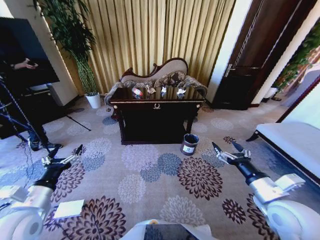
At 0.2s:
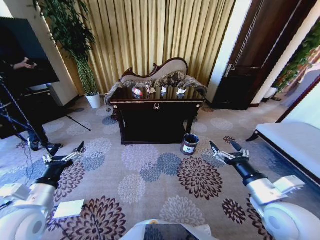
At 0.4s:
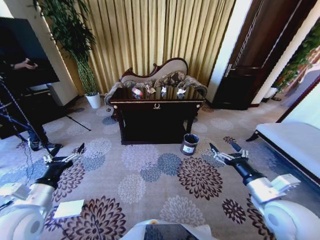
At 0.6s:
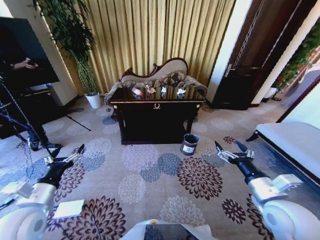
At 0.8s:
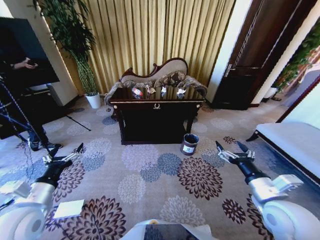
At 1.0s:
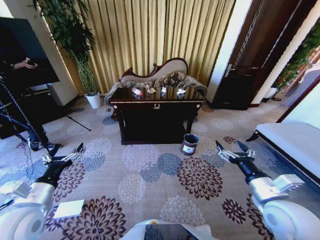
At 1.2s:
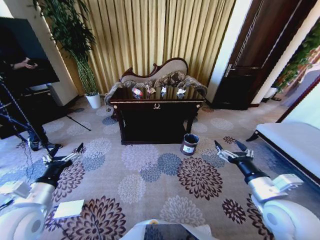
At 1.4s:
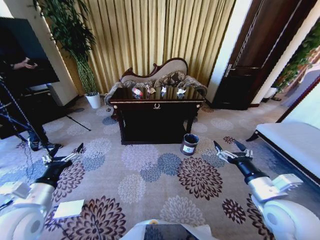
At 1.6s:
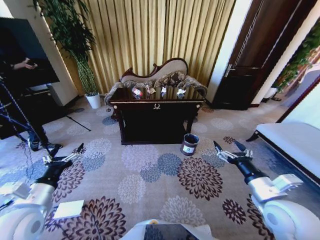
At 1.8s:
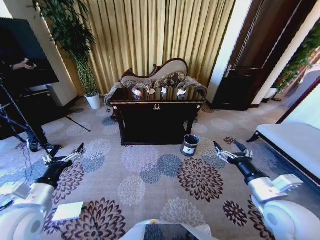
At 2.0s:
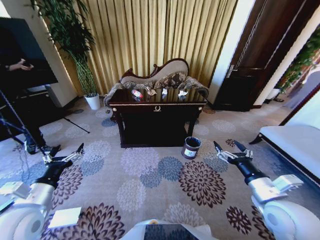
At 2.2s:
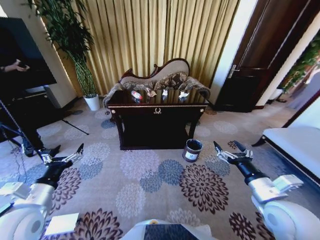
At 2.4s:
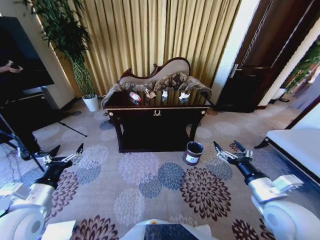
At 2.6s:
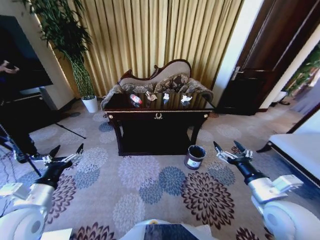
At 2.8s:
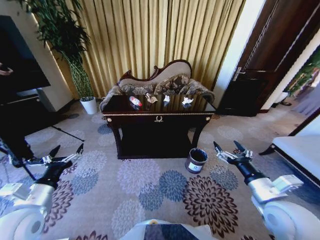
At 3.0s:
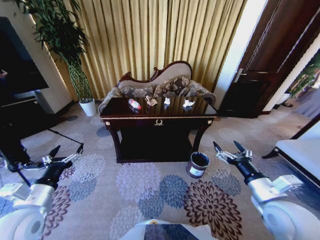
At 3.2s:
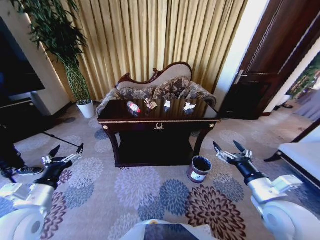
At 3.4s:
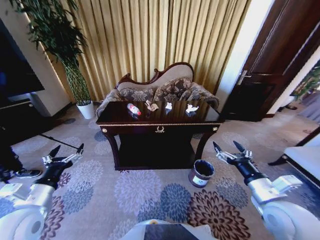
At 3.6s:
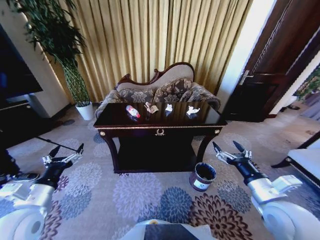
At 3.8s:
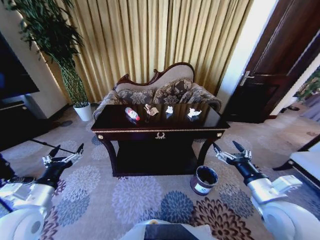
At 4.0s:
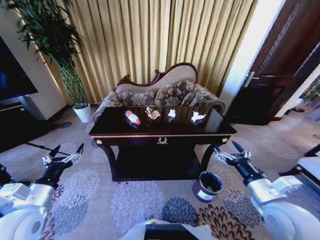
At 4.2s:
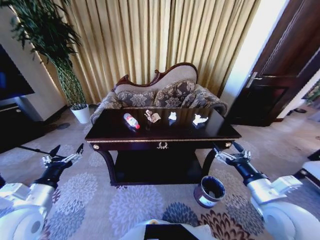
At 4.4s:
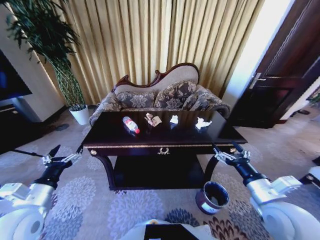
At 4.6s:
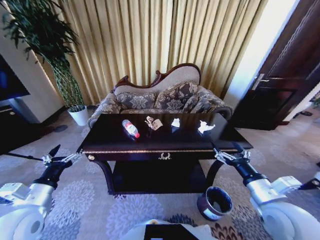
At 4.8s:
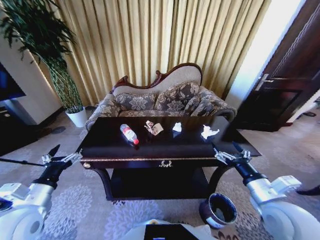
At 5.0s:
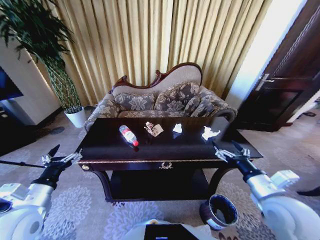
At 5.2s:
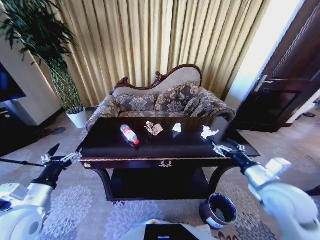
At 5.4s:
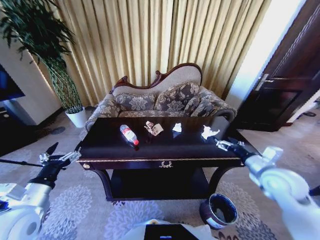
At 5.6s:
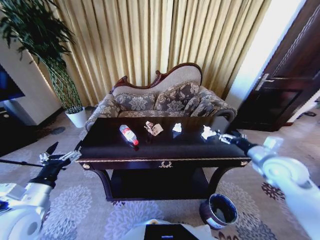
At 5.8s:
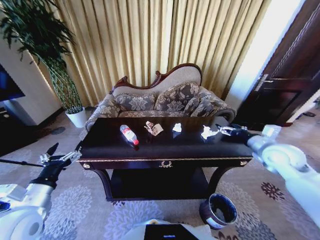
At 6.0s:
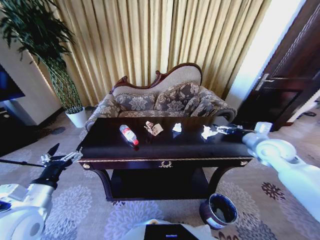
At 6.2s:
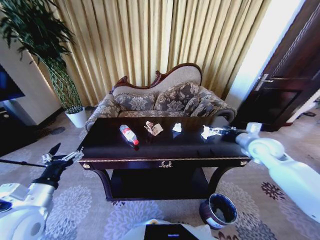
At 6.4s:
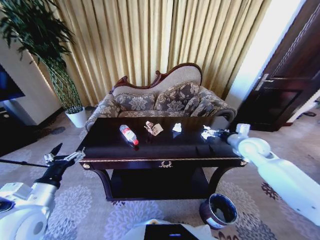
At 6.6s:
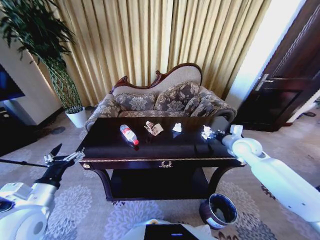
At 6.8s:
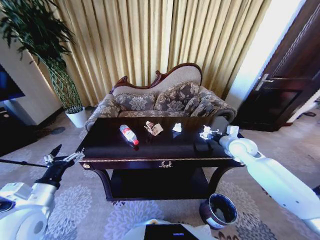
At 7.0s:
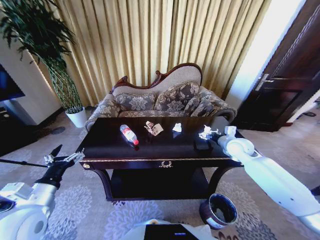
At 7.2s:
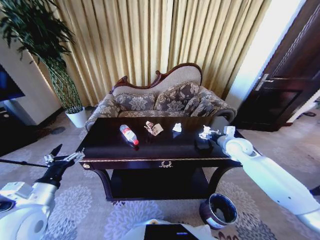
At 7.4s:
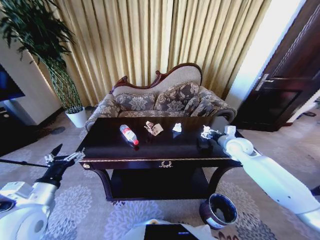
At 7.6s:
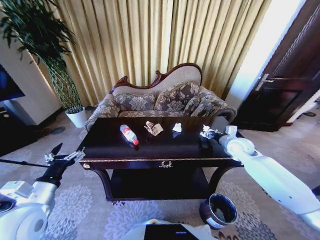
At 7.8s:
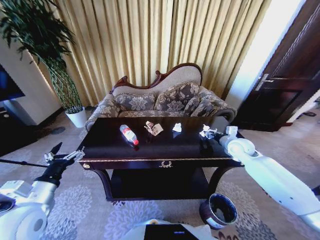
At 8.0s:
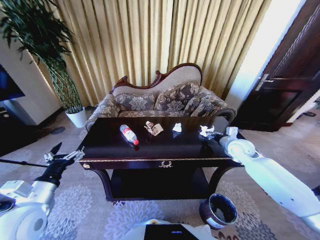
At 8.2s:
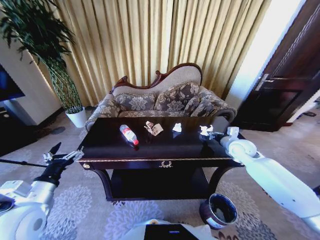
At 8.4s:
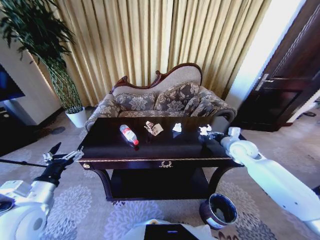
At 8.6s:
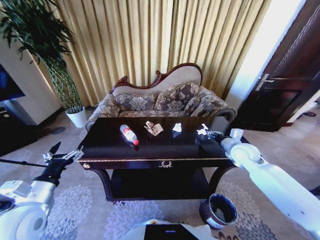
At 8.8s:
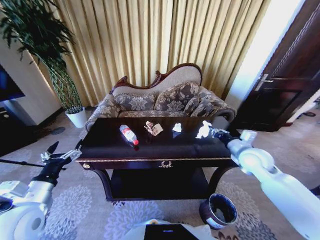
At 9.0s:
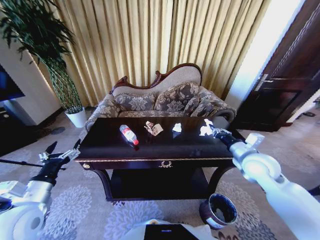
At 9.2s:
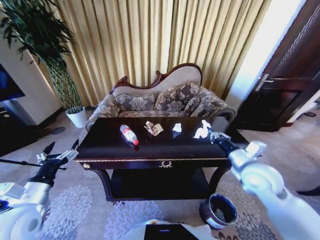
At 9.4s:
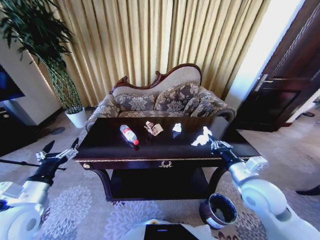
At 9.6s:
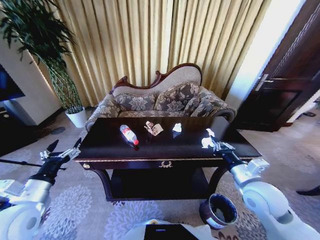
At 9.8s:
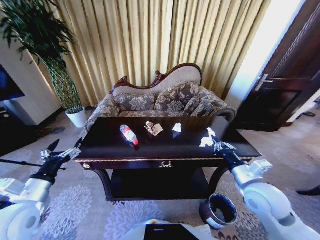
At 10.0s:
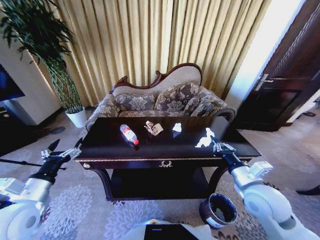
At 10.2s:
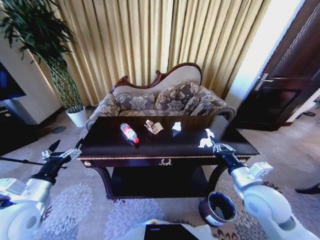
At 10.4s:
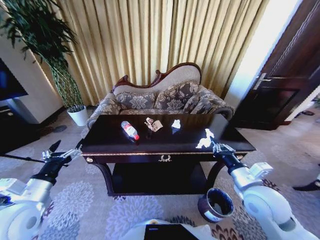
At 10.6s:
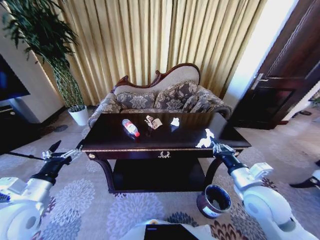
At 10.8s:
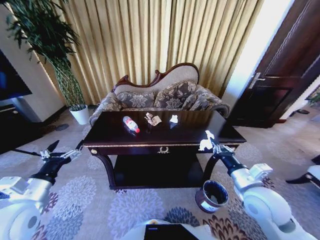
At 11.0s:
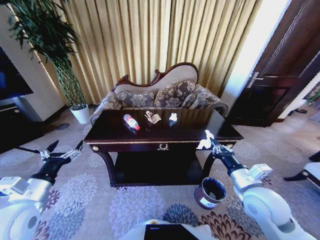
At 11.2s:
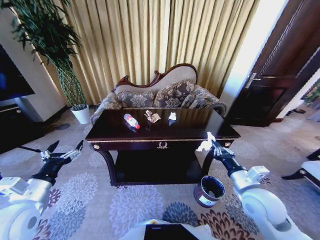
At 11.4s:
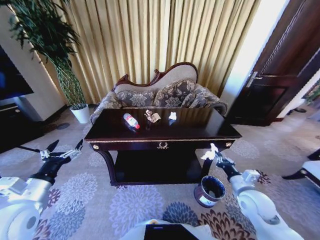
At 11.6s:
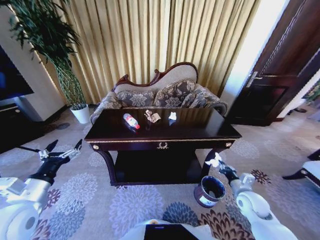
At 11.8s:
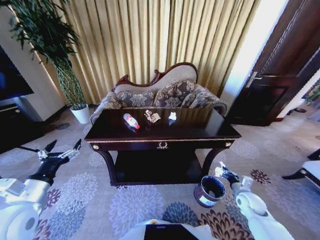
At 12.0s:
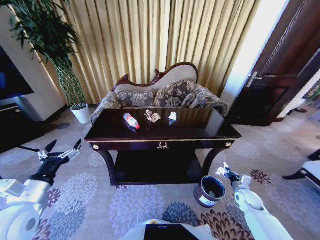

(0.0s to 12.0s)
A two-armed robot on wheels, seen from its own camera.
Task of the whole recording: Move to the front of the table and place the trash on the table into the trash bin.
4.4s - 6.0s: The right gripper heads forward and to the right, covering approximately 25 cm.
6.0s - 7.6s: The right gripper moves forward, downward and to the left, approximately 10 cm, and closes up.
7.6s - 9.0s: The right gripper moves backward, some 10 cm, and closes.
9.0s - 10.4s: The right gripper goes some 10 cm backward.
10.4s - 12.0s: The right gripper is displaced downward and to the right by roughly 30 cm.

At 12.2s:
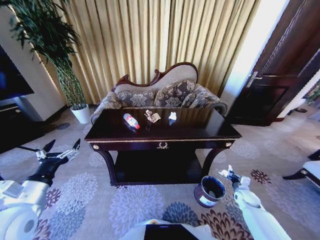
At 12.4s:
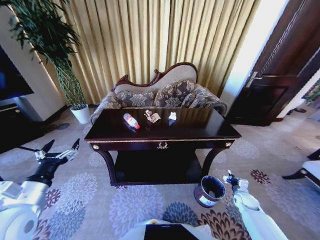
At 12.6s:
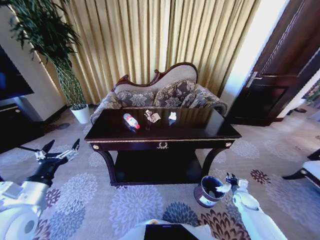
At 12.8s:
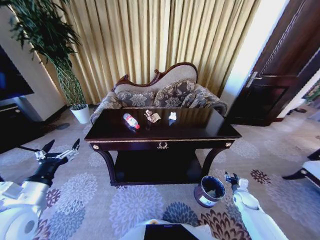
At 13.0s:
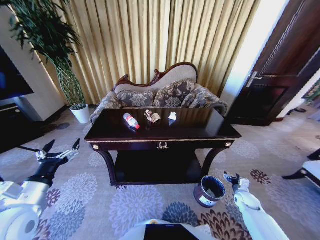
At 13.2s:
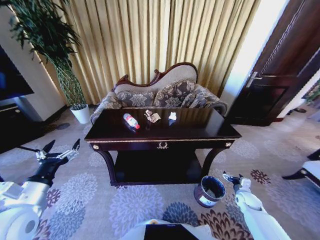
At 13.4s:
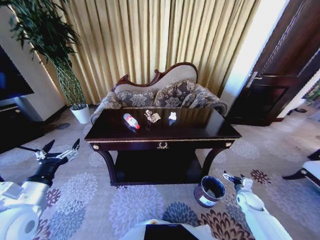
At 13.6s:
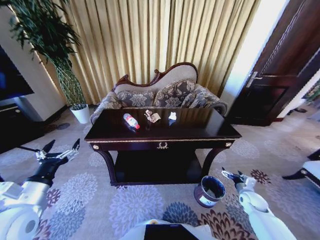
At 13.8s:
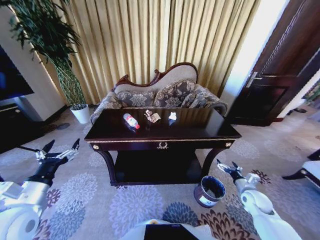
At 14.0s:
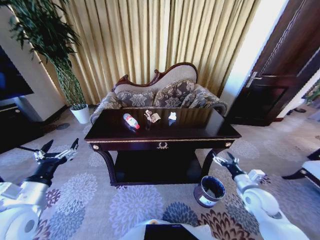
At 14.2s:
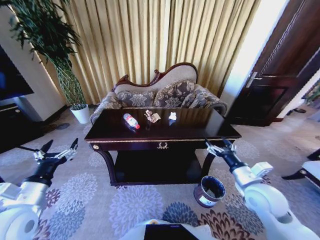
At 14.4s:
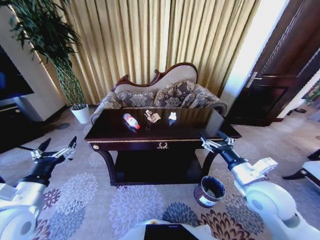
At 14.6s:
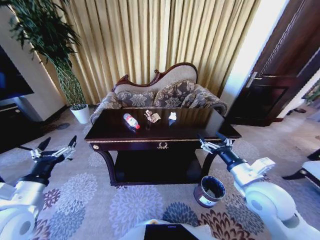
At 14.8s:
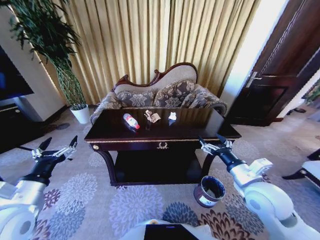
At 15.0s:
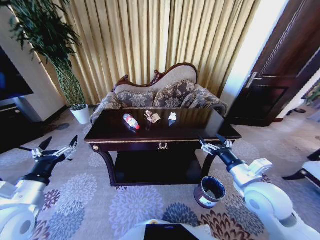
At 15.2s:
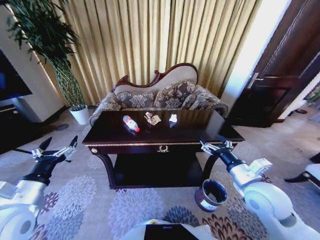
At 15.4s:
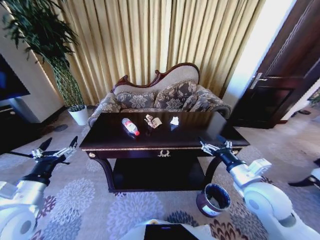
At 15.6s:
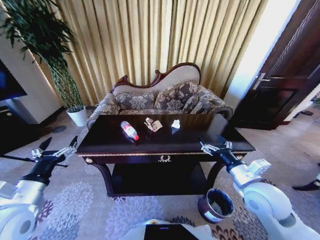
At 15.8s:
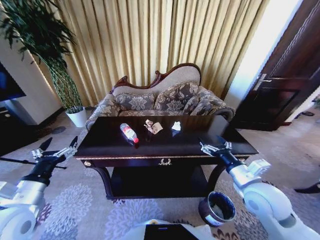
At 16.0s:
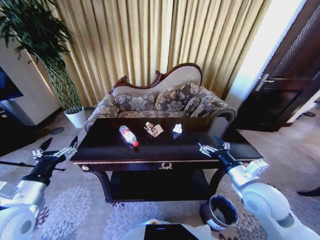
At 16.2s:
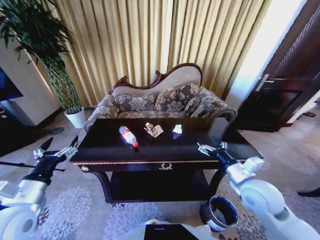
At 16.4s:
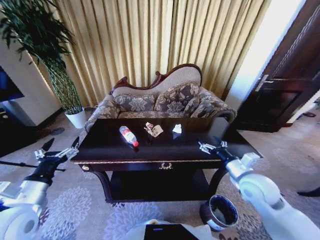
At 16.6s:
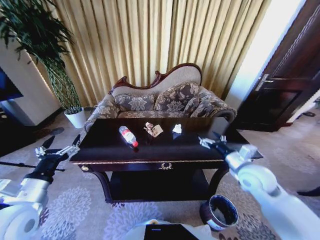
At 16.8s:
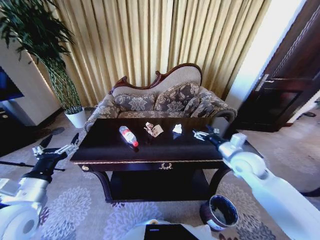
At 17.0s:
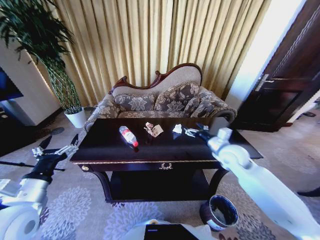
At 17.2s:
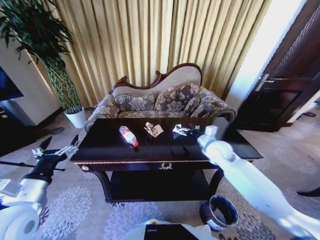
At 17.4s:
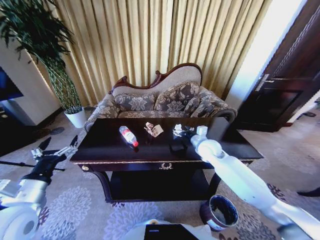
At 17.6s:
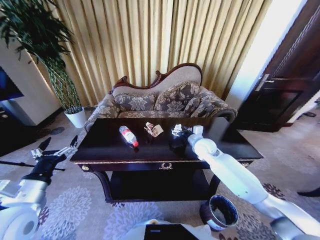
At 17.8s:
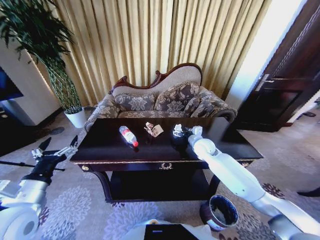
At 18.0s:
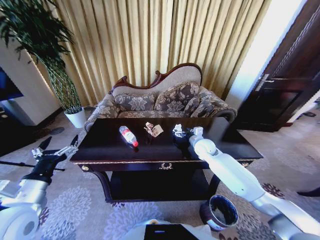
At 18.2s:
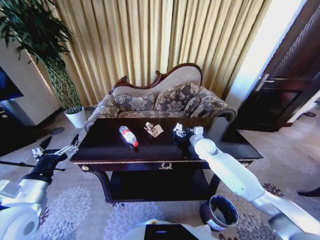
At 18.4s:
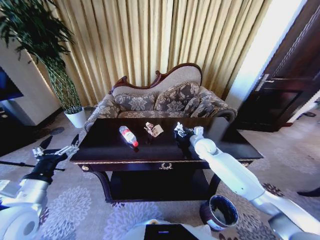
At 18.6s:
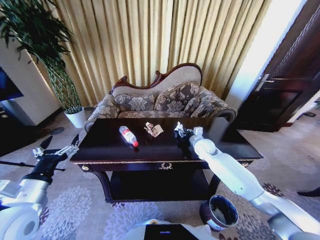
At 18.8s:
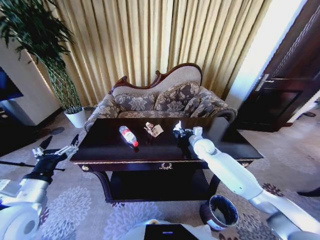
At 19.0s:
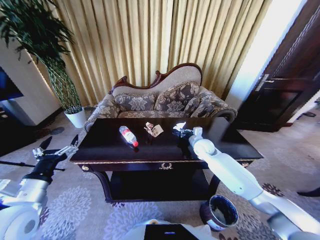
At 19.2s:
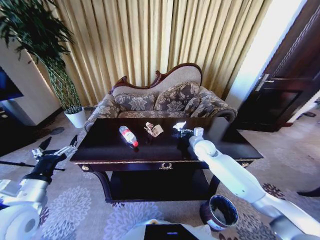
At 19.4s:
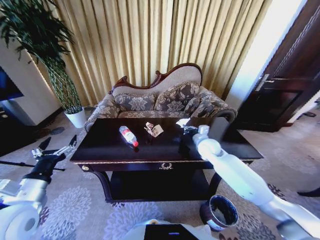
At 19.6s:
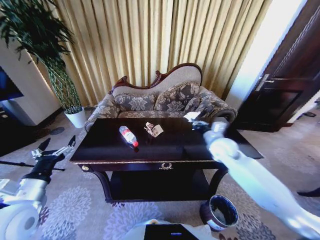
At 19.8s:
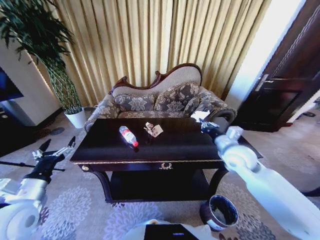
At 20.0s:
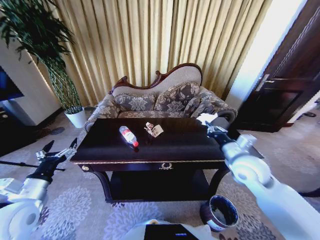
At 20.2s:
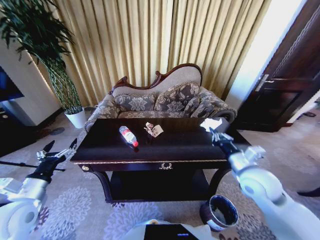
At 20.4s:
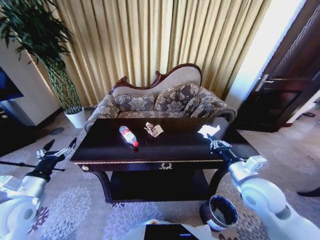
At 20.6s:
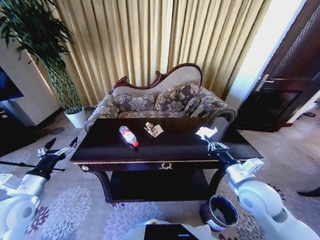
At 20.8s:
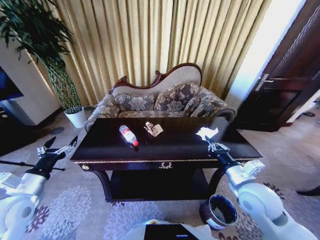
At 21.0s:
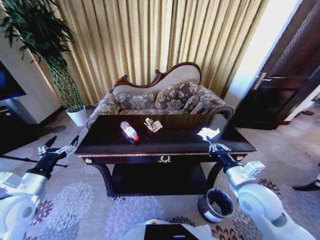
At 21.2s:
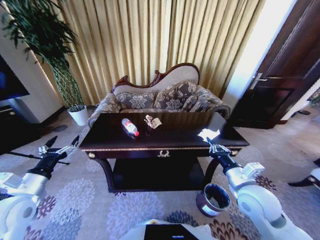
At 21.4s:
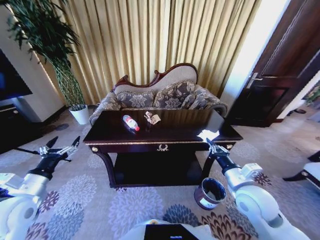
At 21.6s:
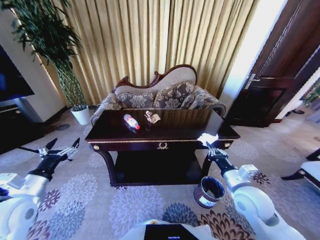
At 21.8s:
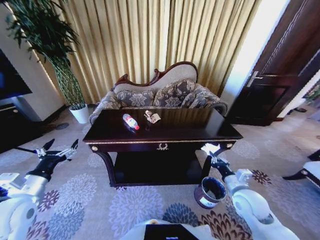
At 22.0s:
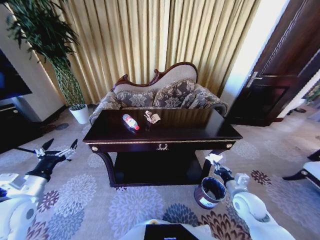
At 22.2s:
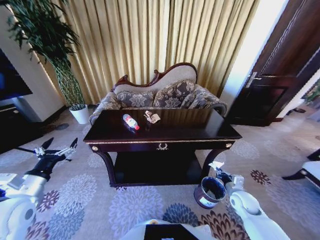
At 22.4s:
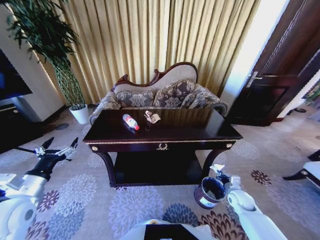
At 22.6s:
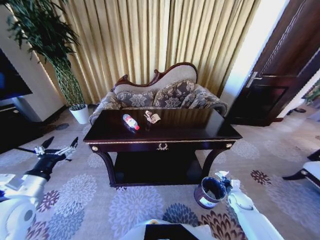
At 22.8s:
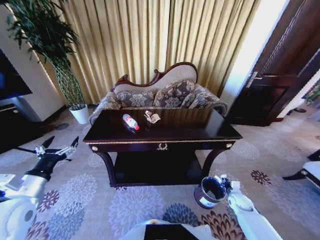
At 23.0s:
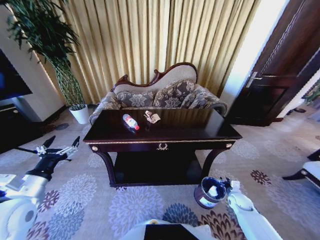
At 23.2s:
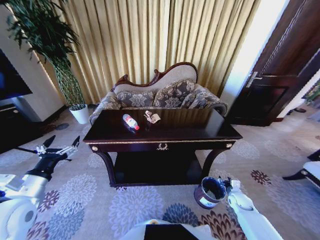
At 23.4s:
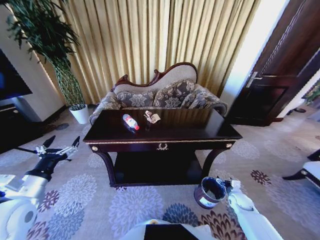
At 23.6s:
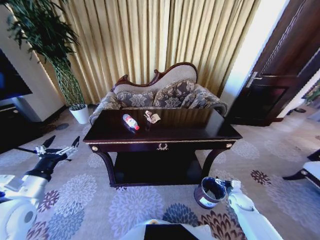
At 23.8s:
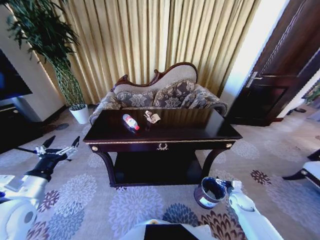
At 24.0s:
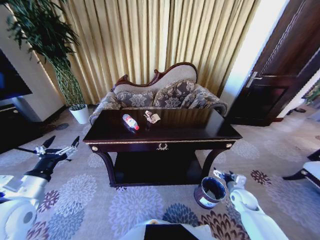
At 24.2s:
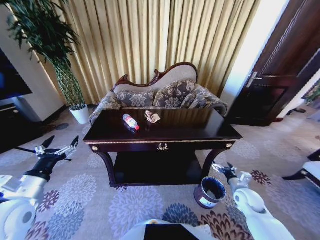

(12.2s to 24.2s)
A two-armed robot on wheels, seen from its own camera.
Task of the whole recording: Move to the front of the table and place the trash on the table into the trash bin.
12.2s - 13.8s: The right gripper goes about 10 cm upward, and opens up.
13.8s - 15.2s: The right gripper goes some 25 cm upward and to the left.
15.2s - 16.6s: The right gripper shifts approximately 5 cm forward.
16.6s - 18.2s: The right gripper is displaced forward and to the left by roughly 20 cm.
18.2s - 19.8s: The right gripper moves backward and upward, approximately 15 cm, and closes.
19.8s - 21.2s: The right gripper travels backward by some 15 cm.
21.2s - 22.6s: The right gripper is displaced downward and to the right by approximately 30 cm.
22.6s - 24.2s: The right gripper goes approximately 10 cm upward, and opens its fingers.
